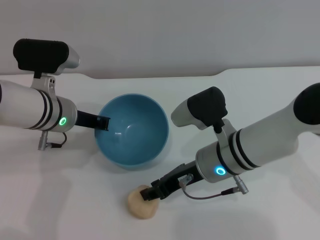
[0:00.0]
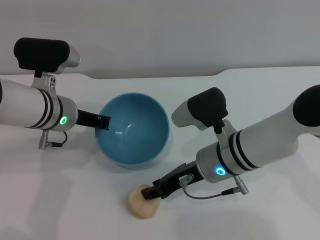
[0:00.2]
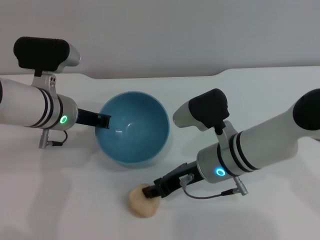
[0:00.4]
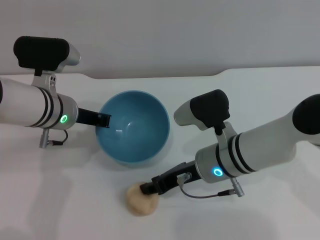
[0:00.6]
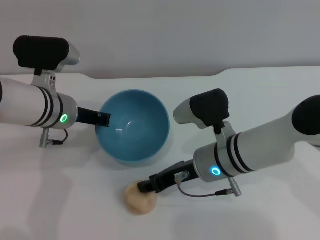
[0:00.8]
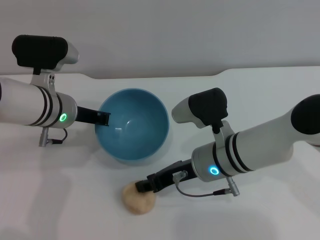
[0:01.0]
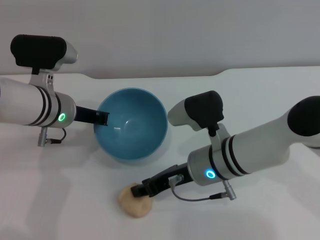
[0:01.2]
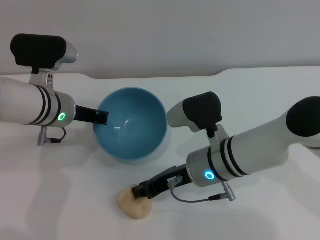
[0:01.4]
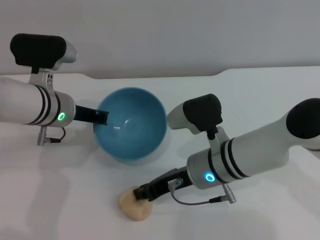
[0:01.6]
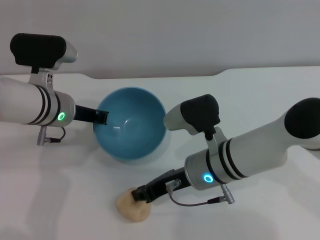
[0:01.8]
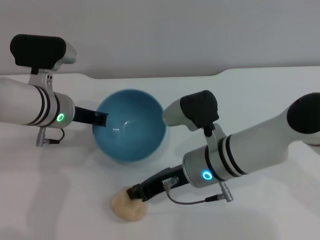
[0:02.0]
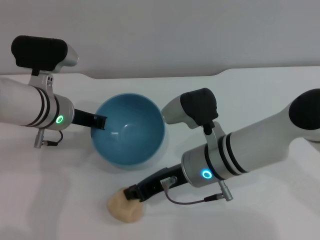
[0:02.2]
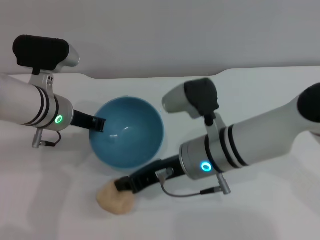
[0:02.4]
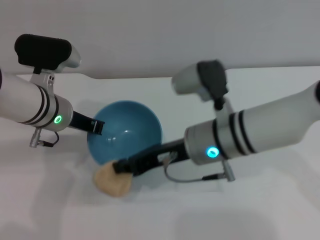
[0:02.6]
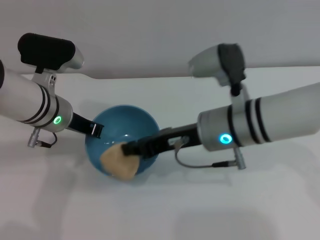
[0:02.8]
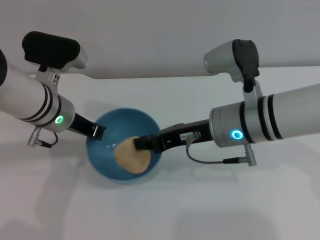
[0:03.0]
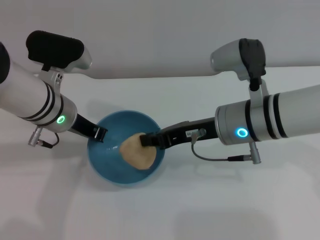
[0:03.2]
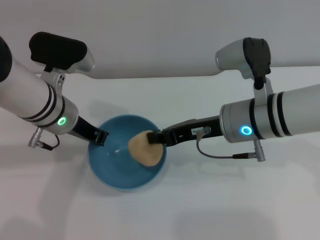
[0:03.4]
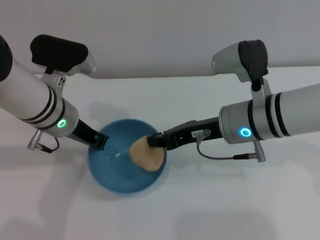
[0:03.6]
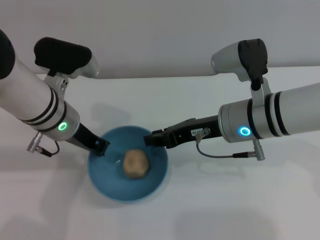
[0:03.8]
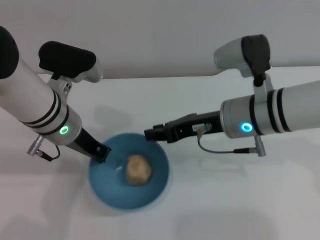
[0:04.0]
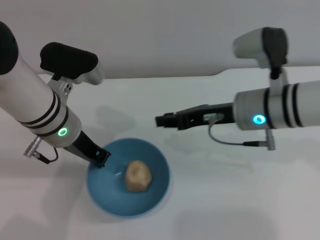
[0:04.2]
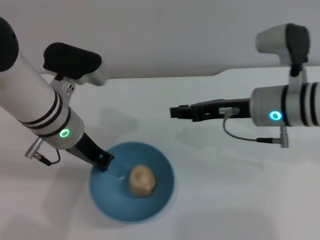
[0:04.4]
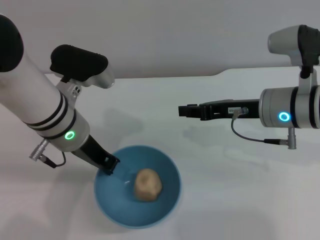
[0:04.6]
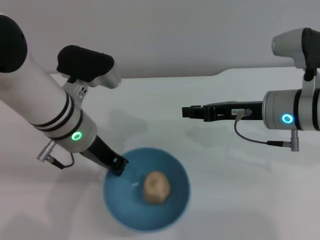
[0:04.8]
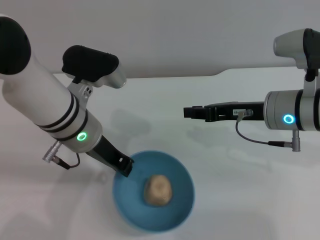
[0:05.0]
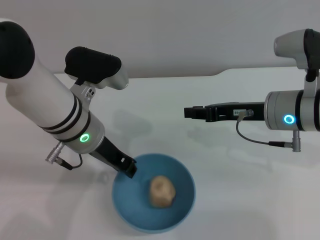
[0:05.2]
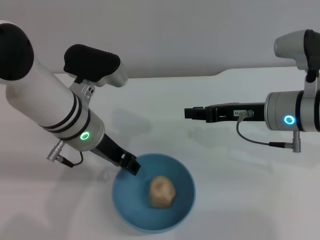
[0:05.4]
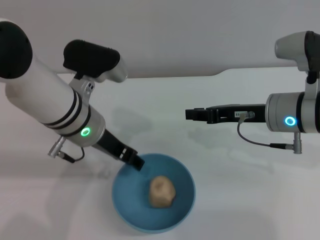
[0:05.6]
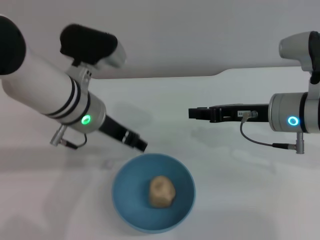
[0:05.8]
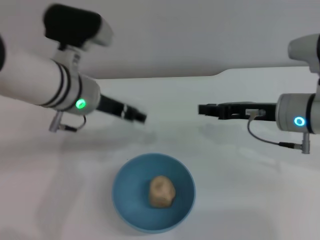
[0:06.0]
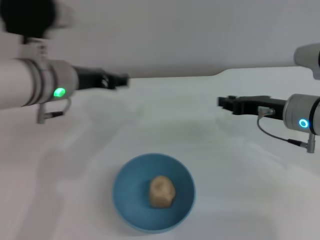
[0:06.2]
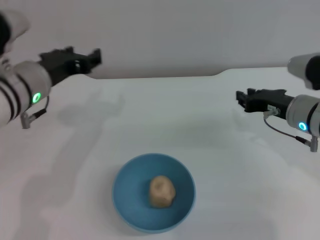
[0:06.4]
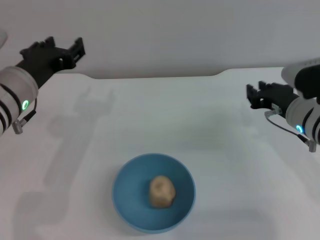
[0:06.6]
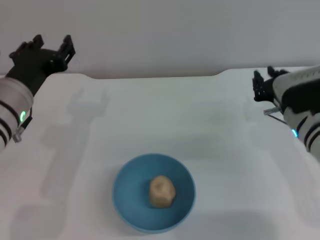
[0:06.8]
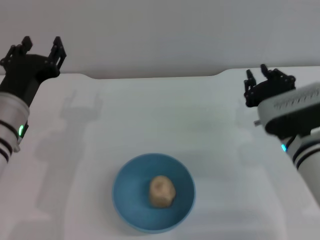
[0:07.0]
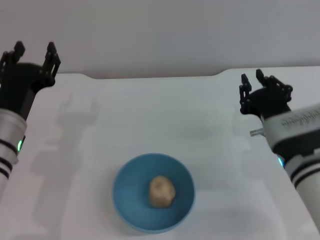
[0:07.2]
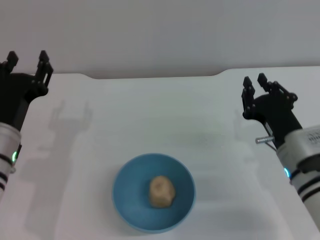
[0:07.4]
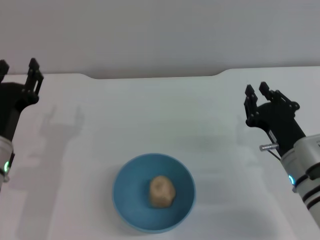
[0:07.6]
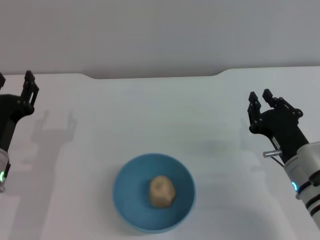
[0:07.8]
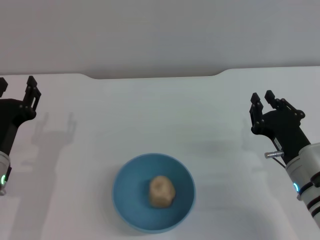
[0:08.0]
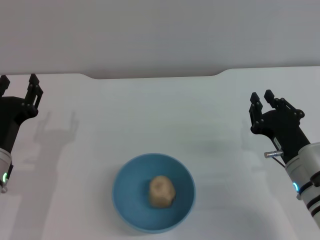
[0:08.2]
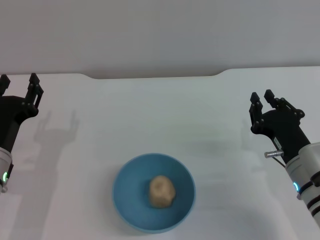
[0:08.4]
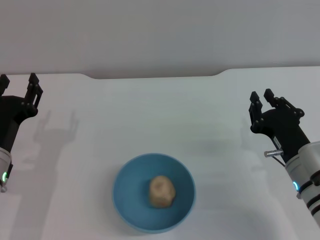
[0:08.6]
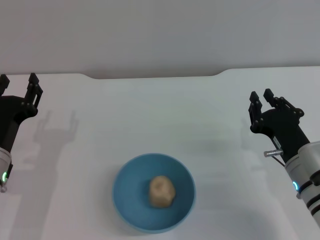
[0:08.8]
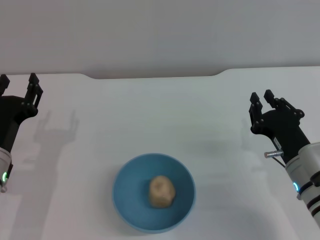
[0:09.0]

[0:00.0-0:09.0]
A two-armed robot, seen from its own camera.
Task of the whole recording: put the egg yolk pastry into the blue bowl and pour it out repeatedly.
Step, 0:00.0 to 0:02.6: Pick up the egg yolk pastry with the right gripper.
Step, 0:02.8 to 0:04.2: Place the egg yolk pastry into the bowl.
Step, 0:04.4 to 0:05.8: Place the bowl on the table.
0:00.0 to 0:01.6: The grippers stay close to where they were, moving slightly.
0:01.6 to 0:03.0: The right gripper is displaced upward by some 5 cm.
0:03.0 to 0:04.4: The right gripper moves to the right, some 5 cm.
0:04.4 to 0:06.0: The left gripper opens its fingers.
0:06.0 to 0:07.6: The left gripper moves downward, to the left and backward, about 20 cm. The right gripper is displaced downward and backward by roughly 10 cm.
0:07.6 to 0:09.0: The grippers make only small movements.

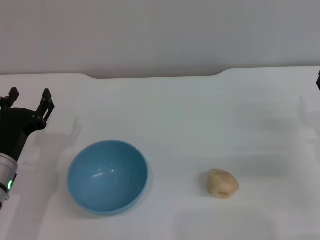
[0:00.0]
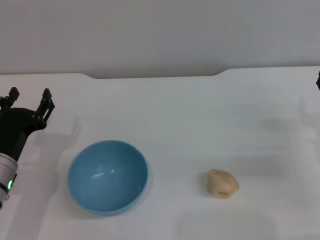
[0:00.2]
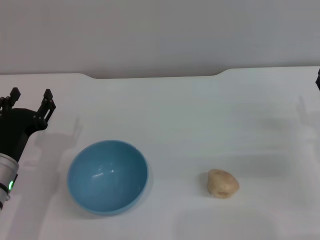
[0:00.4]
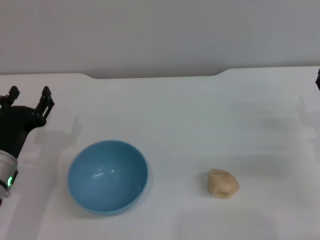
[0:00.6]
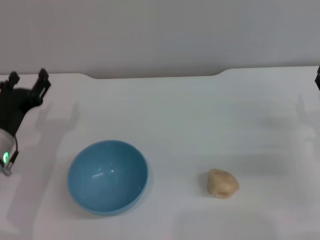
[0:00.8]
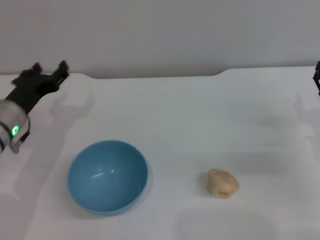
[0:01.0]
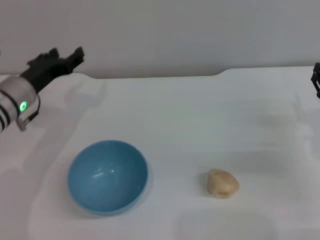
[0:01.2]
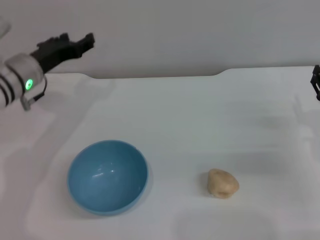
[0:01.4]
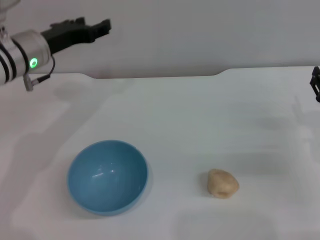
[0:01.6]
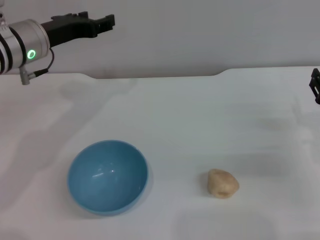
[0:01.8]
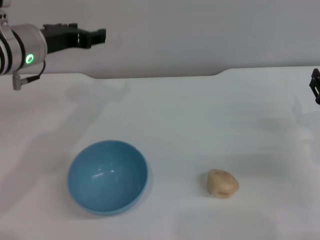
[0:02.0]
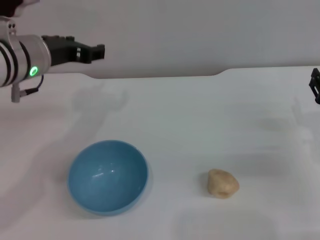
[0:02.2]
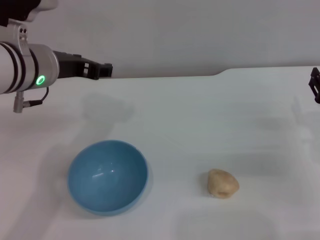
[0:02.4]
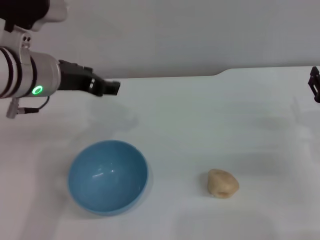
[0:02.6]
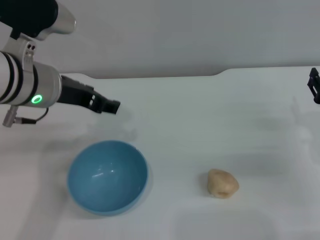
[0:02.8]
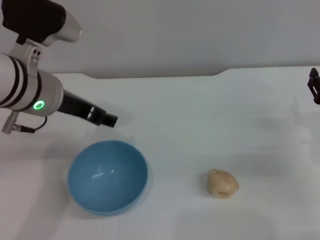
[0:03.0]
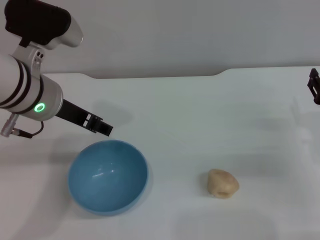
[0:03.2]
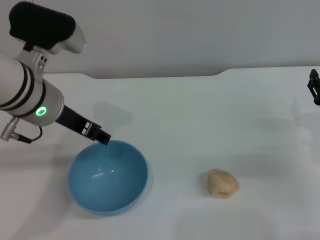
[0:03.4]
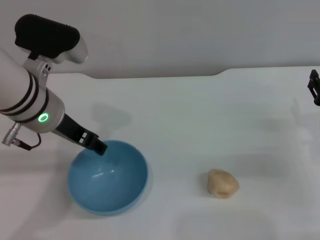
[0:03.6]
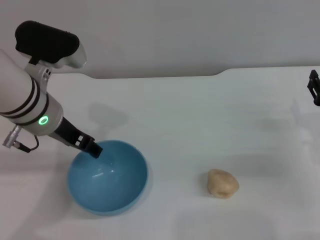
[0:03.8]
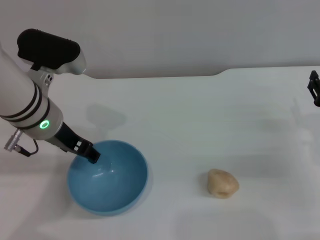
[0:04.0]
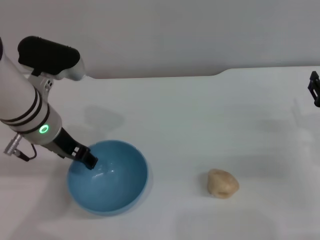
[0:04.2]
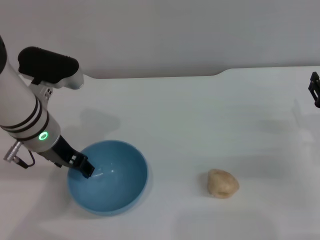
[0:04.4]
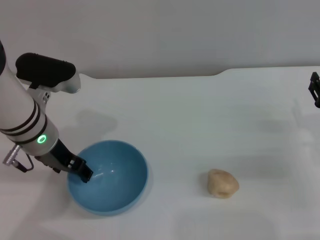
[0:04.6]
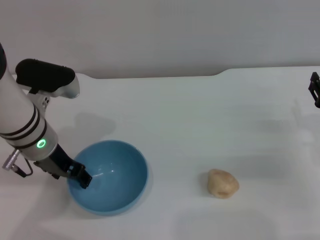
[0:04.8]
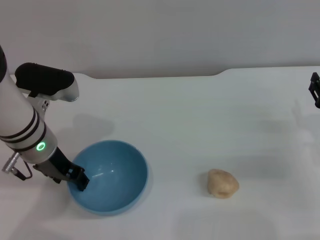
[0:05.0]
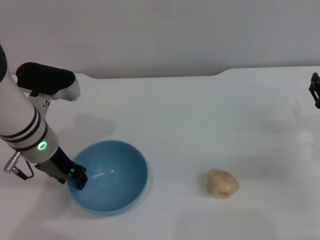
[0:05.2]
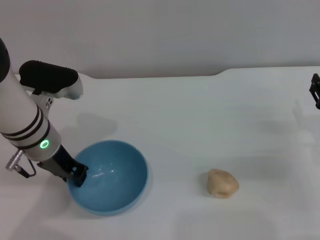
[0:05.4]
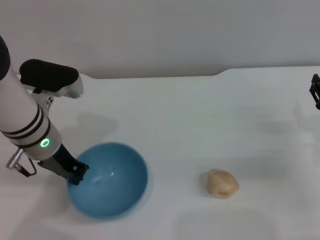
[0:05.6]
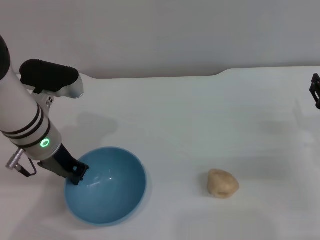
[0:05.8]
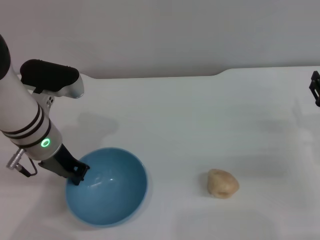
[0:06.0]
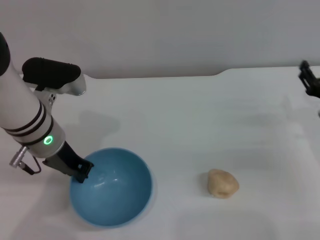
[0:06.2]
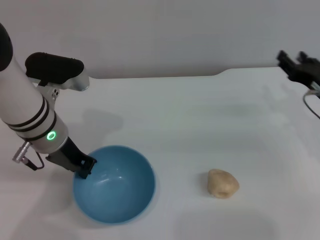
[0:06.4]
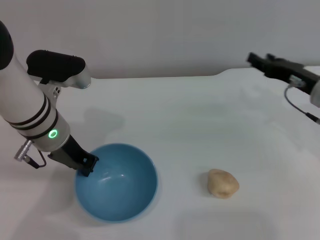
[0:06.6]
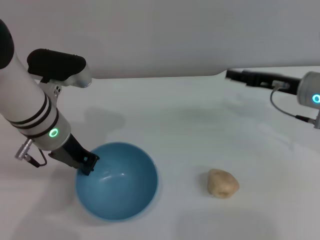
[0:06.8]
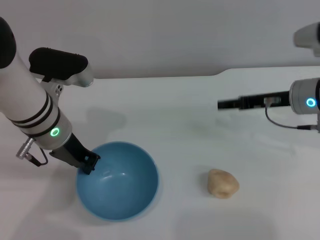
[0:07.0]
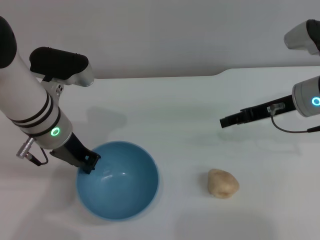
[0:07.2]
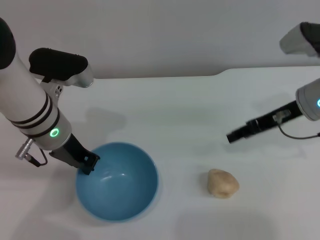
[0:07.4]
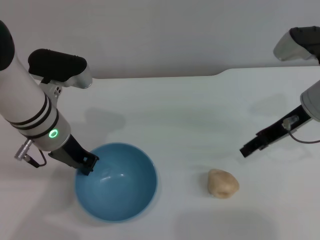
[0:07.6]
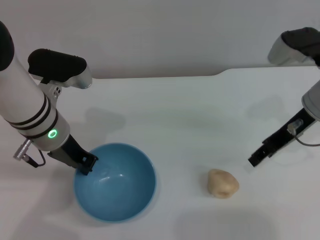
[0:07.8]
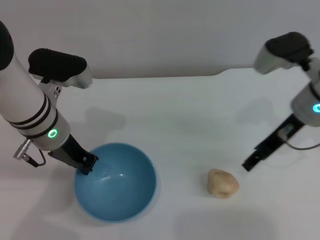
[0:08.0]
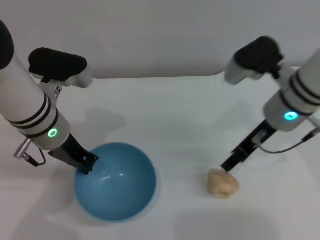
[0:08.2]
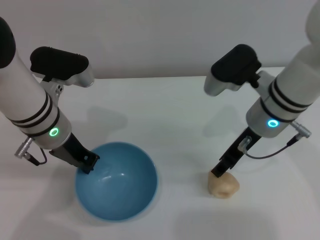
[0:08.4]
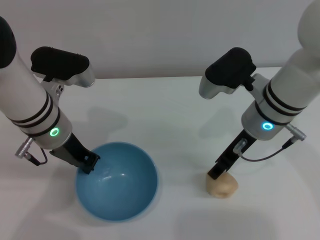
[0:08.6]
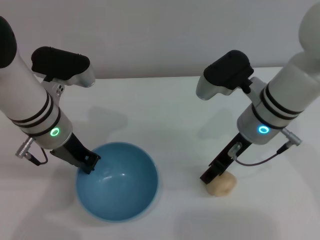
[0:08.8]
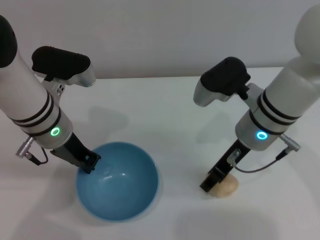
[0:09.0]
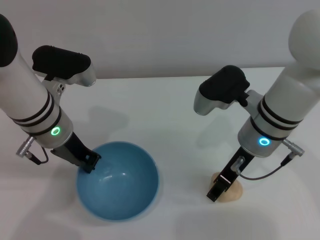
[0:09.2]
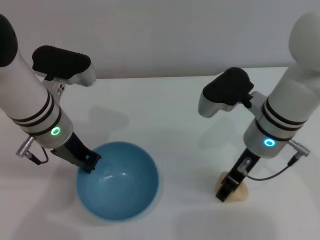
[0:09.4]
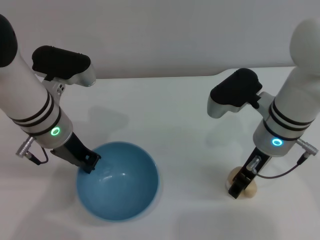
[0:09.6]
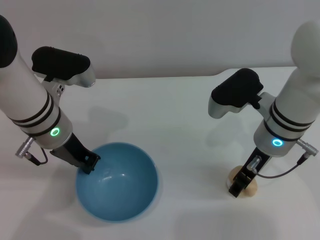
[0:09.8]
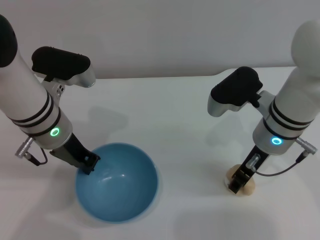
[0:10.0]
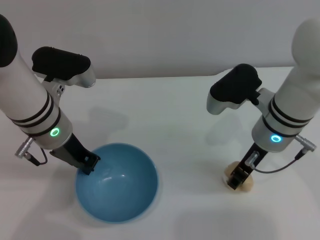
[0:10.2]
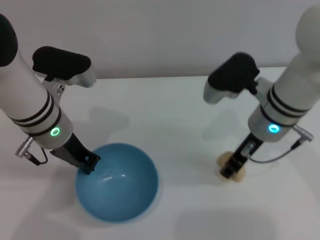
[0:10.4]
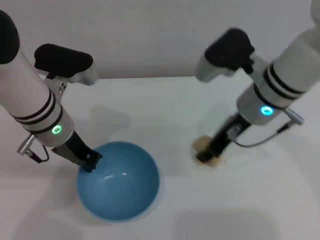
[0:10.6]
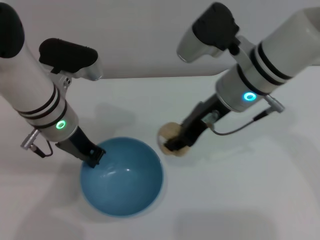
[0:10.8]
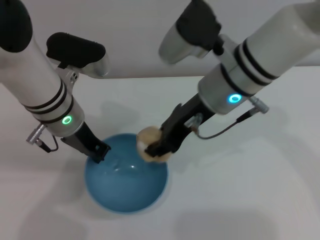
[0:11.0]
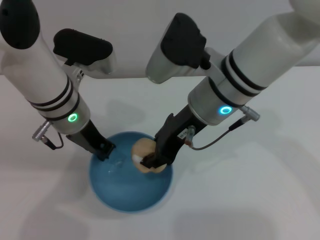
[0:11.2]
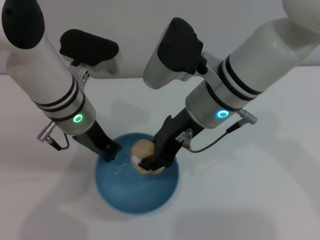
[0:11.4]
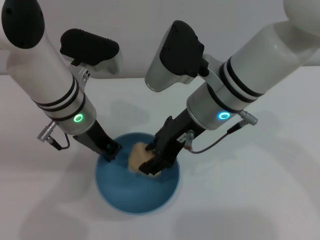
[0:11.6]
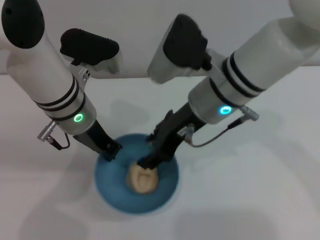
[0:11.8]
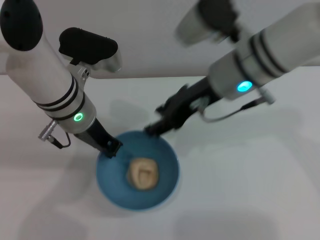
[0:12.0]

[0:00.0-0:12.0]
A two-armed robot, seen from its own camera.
Task of the whole recording: put the egg yolk pastry into the blue bowl and pour it out repeatedly.
Step, 0:00.0 to 0:07.4: Pick up the bowl with the left gripper.
Step, 0:07.6 to 0:10.4: Pick up the egg yolk pastry with the right gripper.
0:00.0 to 0:01.6: The left gripper heads forward and upward, covering some 20 cm.
0:01.6 to 0:03.0: The left gripper travels backward by some 10 cm.
0:03.0 to 0:04.4: The left gripper goes some 5 cm downward.
0:04.4 to 0:06.0: The left gripper closes.
0:06.0 to 0:07.6: The right gripper moves upward, forward and to the left, some 15 cm.
0:07.6 to 0:09.0: The right gripper is displaced to the left by about 10 cm.
0:09.0 to 0:10.4: The grippers stay close to where they were, moving slightly.
0:10.4 to 0:12.0: The right gripper travels upward by some 5 cm.

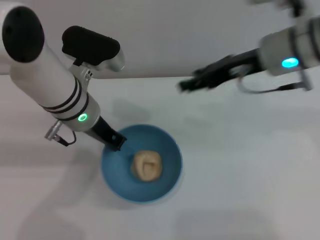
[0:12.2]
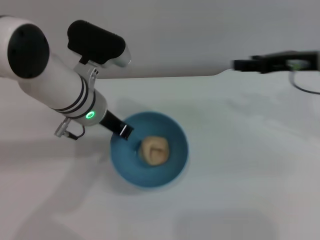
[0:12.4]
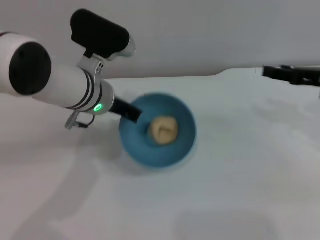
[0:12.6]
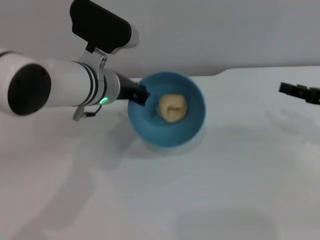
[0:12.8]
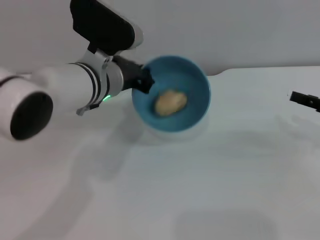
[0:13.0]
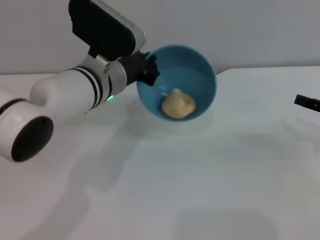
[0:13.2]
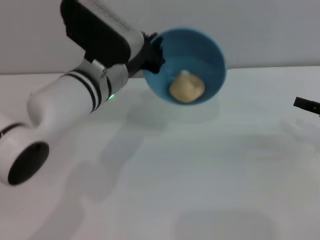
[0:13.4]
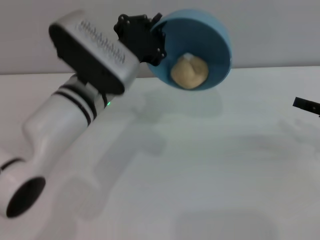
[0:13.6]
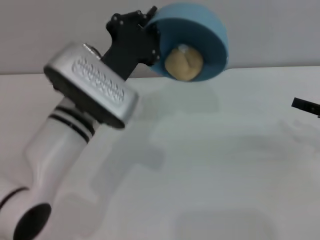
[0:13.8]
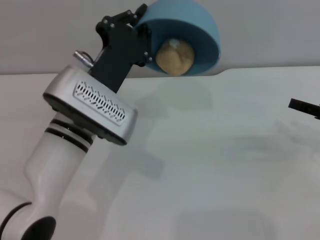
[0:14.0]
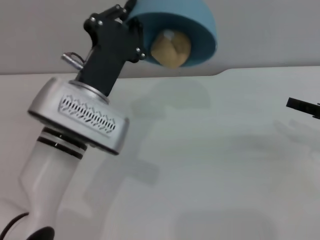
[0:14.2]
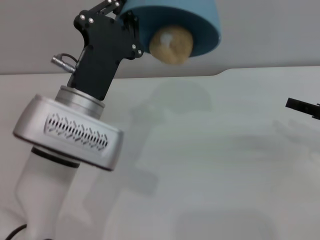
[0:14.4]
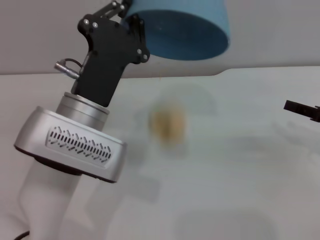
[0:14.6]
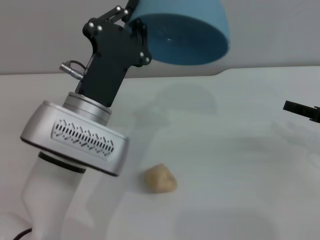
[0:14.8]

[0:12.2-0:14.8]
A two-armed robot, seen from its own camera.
Task of the whole recording: put the egg yolk pastry into the blue bowl and pour it out repeatedly.
0:12.2 to 0:13.4: The right gripper moves to the right, downward and backward, about 25 cm.
0:13.4 to 0:14.8: The left gripper travels backward by some 10 cm.
